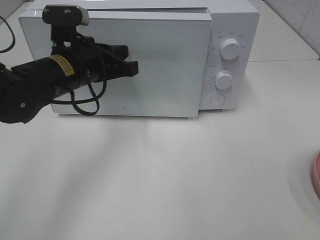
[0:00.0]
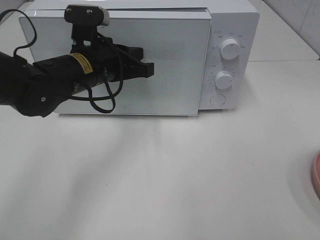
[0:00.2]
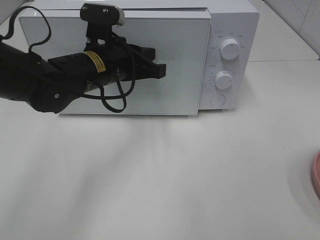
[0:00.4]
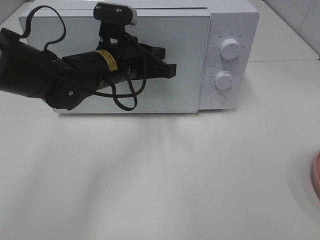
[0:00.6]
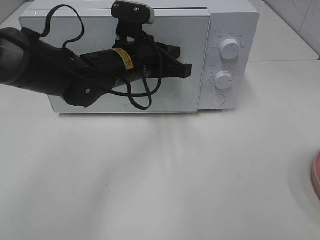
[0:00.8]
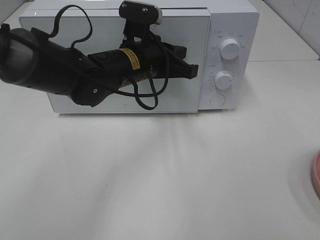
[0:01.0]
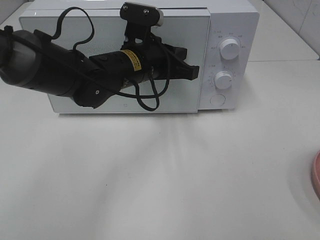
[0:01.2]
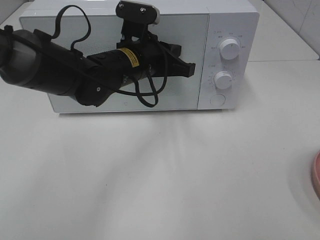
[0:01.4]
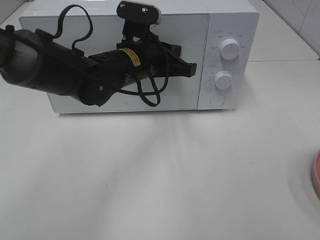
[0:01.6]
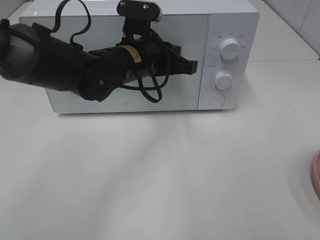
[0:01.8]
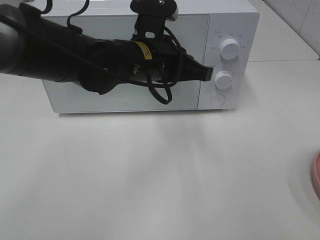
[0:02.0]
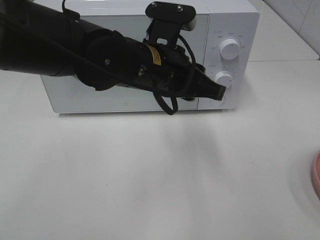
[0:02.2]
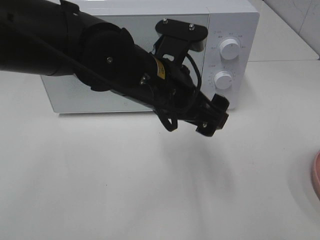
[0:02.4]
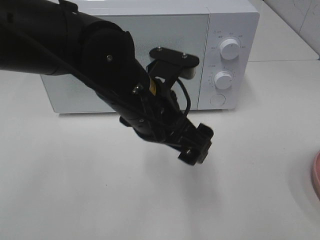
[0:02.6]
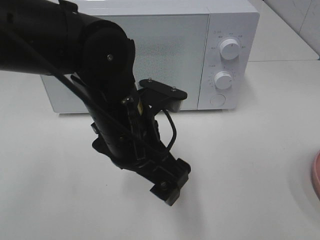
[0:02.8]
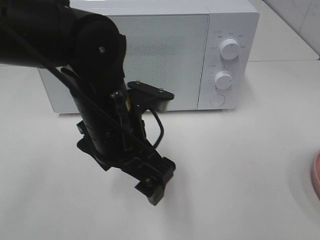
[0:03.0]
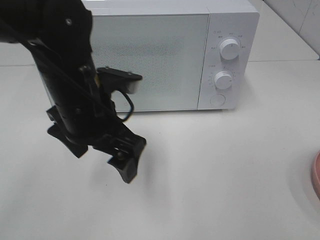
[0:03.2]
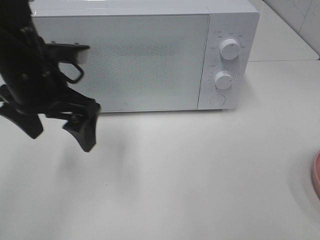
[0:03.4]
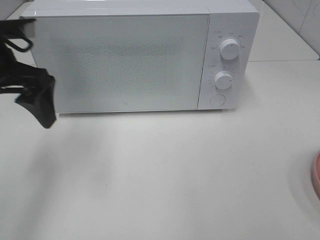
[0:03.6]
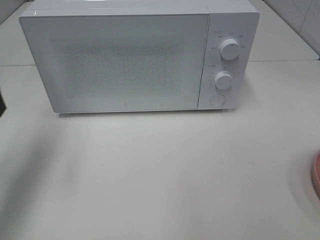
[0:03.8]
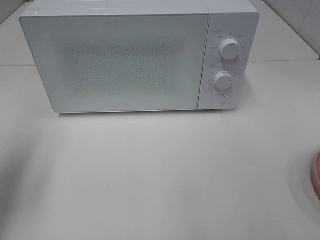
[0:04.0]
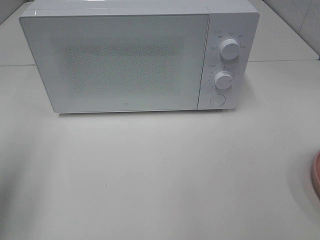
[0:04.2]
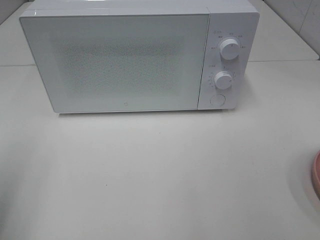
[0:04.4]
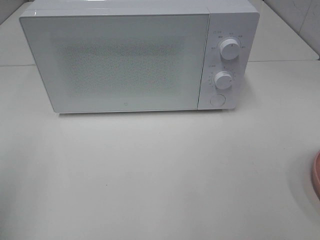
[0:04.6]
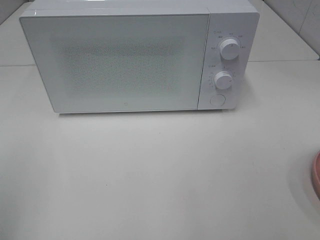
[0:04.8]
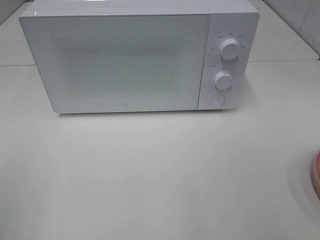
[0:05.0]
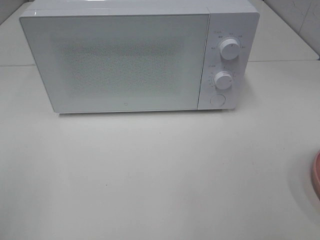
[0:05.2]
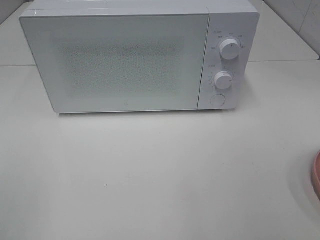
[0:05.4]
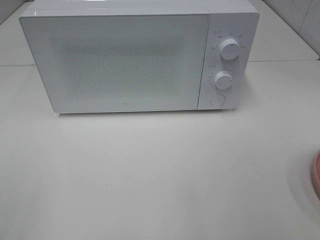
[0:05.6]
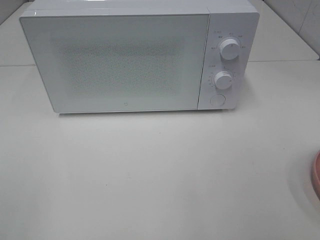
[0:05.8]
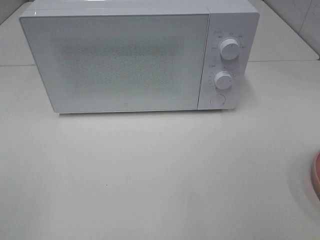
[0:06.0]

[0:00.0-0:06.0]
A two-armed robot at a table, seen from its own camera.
Task of the whole recording: Heat the burger.
0:00.0 to 0:01.6: The left gripper is displaced to the right by some 10 cm.
0:01.6 to 0:03.0: The left gripper travels backward by approximately 15 cm, and opens its fingers.
0:03.0 to 0:04.4: The left gripper is displaced to the left by approximately 30 cm.

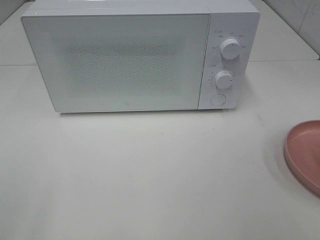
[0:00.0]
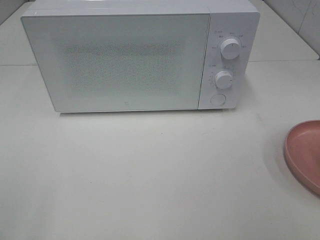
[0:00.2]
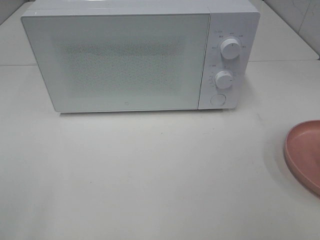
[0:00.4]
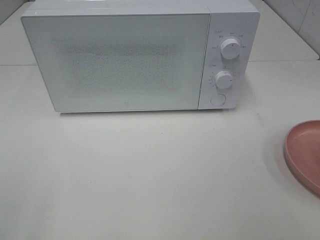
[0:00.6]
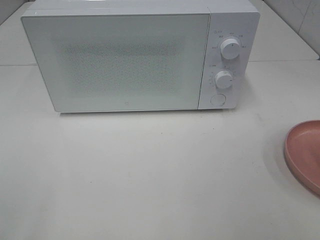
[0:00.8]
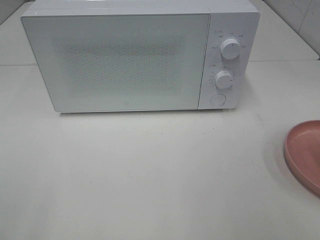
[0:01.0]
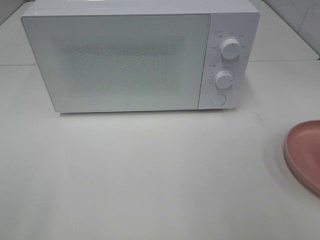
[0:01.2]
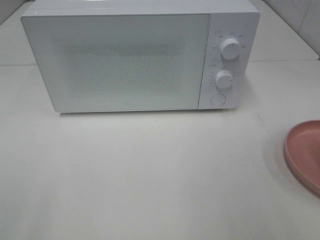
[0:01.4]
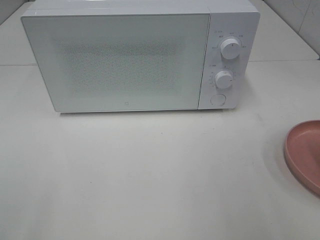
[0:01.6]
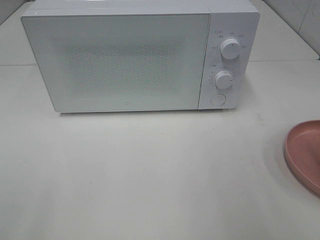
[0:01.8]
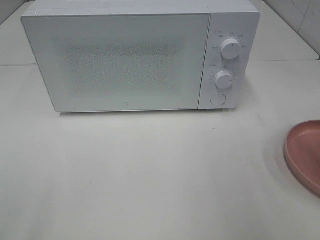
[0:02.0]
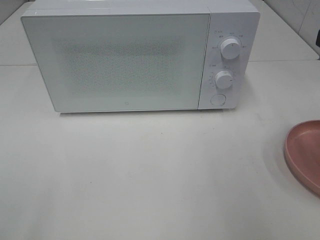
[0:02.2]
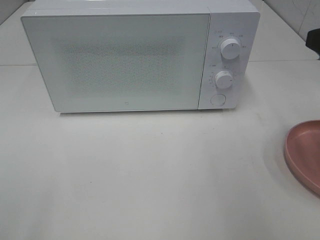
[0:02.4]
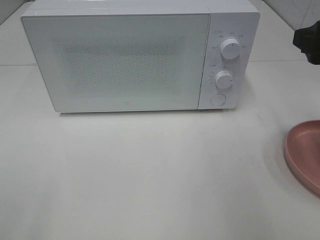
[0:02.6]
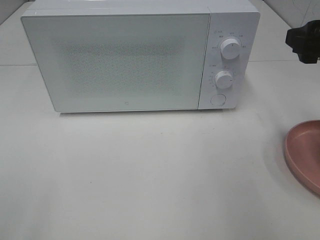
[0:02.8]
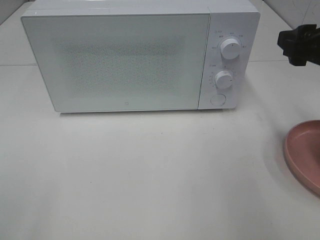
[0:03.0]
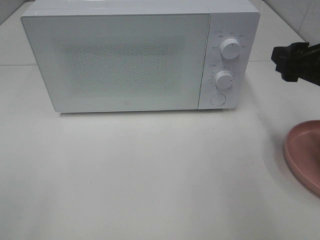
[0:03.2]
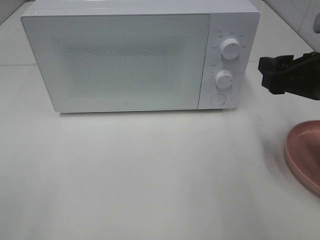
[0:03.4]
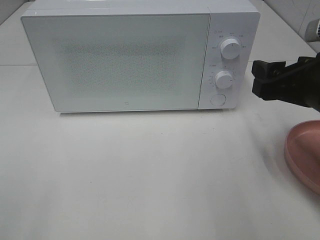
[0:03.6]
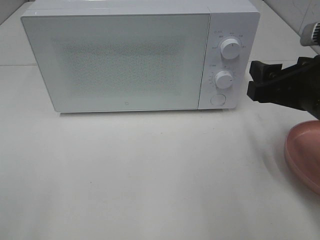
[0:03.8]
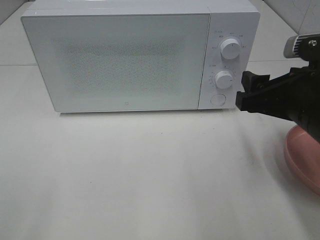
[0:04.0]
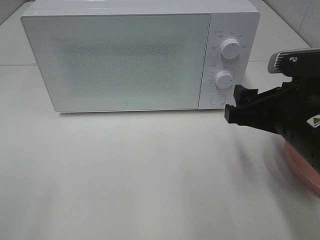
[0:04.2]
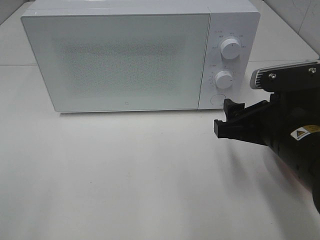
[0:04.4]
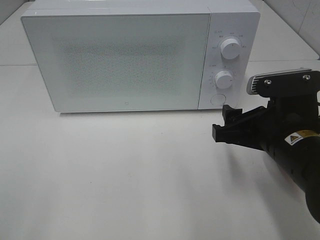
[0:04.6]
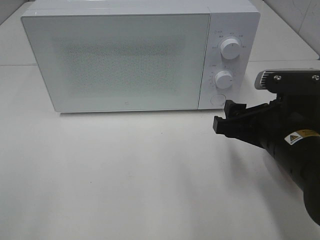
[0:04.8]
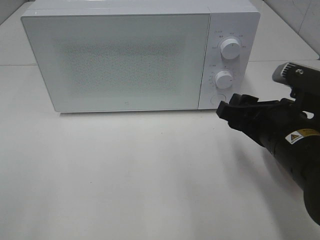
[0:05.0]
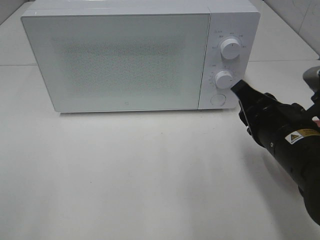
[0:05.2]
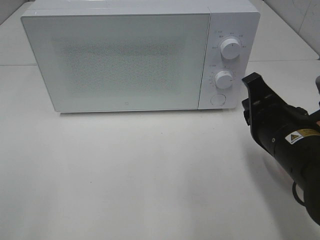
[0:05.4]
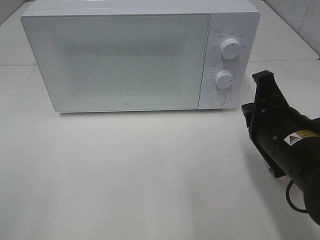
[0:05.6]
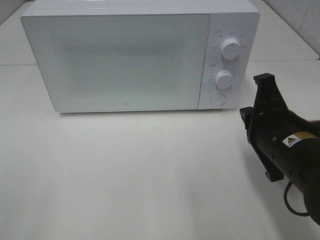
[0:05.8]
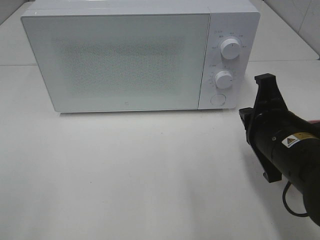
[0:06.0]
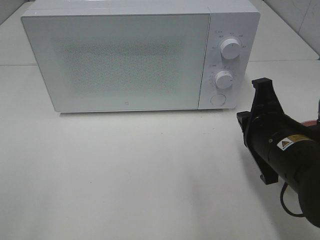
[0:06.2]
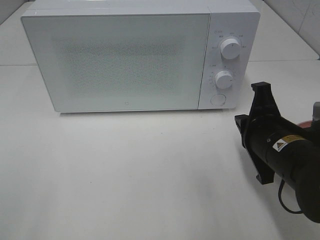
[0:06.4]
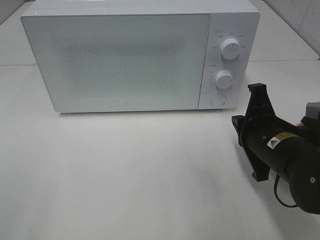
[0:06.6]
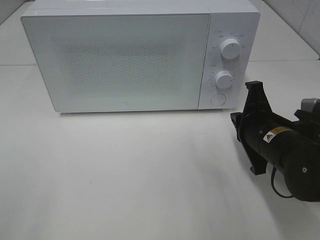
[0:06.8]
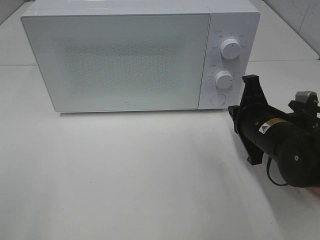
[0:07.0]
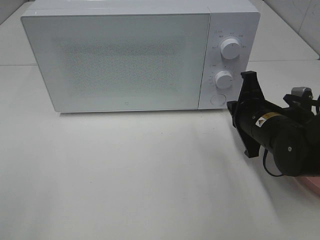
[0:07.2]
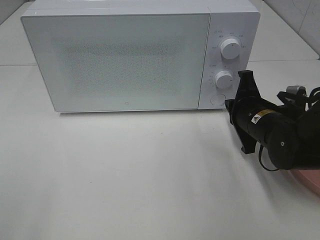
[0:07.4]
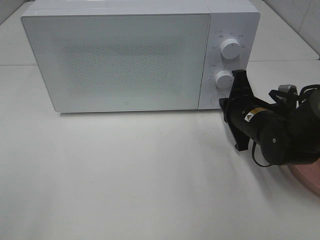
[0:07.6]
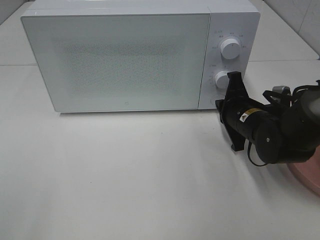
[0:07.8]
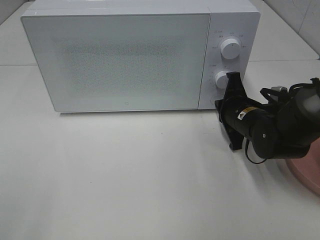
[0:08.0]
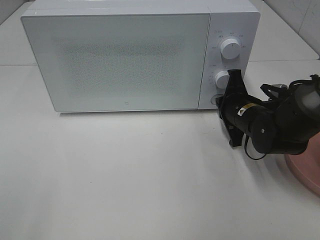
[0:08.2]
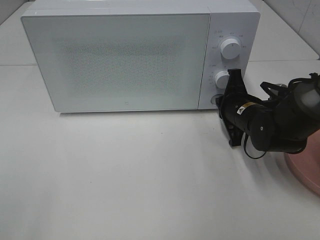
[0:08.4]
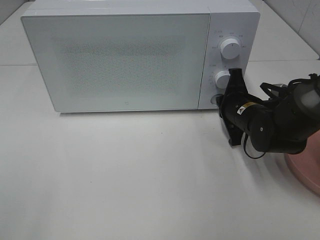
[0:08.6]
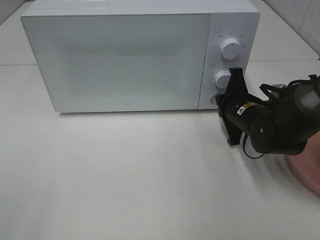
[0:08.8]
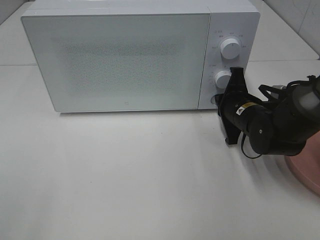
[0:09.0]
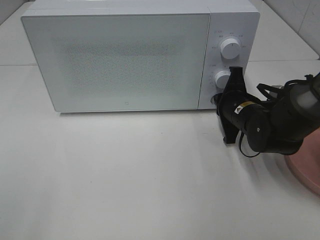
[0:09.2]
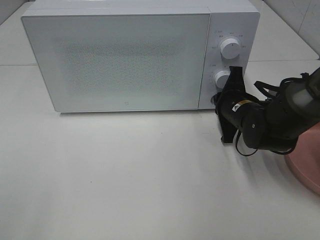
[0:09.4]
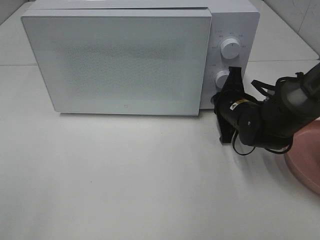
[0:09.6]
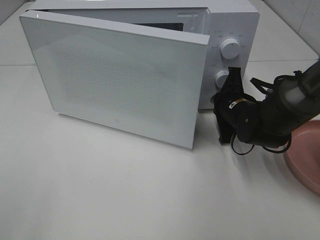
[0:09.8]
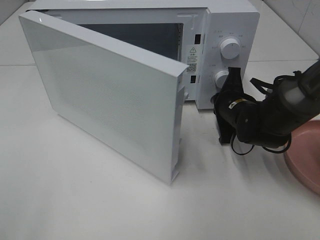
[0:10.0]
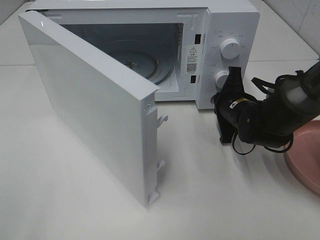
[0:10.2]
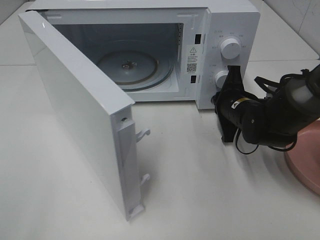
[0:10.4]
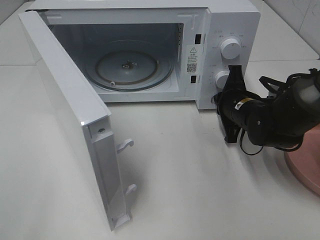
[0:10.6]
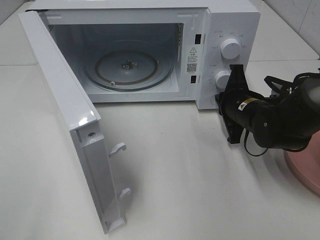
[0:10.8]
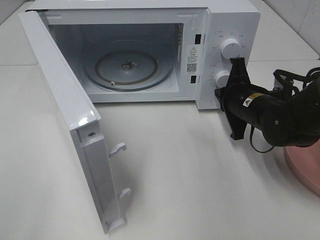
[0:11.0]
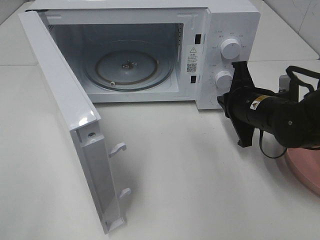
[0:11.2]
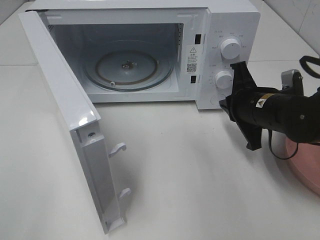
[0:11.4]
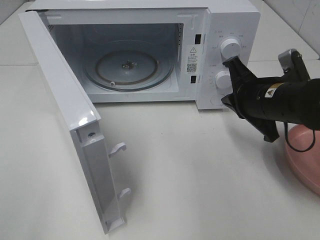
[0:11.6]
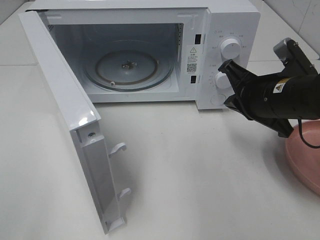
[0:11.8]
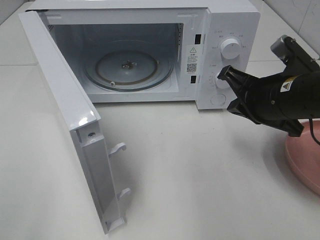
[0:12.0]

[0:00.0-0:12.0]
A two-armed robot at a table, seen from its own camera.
Task of the whole recording: Heat the burger.
Step, 0:00.0 to 0:10.8: Right hand: press the switch.
0:01.6 to 0:03.0: The right gripper moves forward and downward, roughly 15 cm.
0:03.0 to 0:04.4: The right gripper moves to the left, downward and backward, about 15 cm.
0:04.4 to 0:06.0: The right gripper closes its fingers.
0:06.0 to 0:07.6: The right gripper moves forward and downward, about 15 cm.
0:07.6 to 0:09.0: The grippers stay close to where they were, moving slightly.
0:10.4 to 0:12.0: The right gripper heads upward and backward, covering roughly 15 cm.

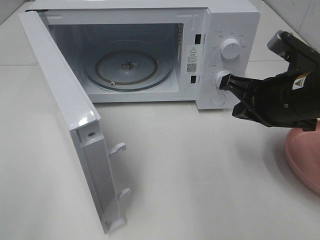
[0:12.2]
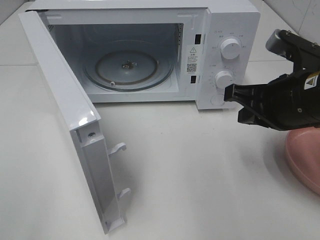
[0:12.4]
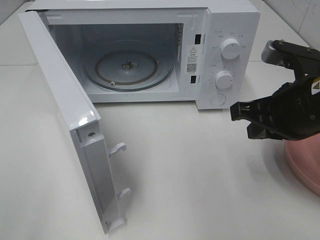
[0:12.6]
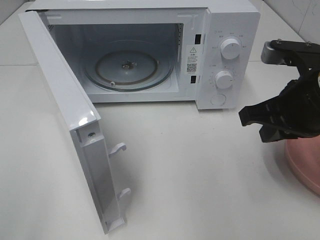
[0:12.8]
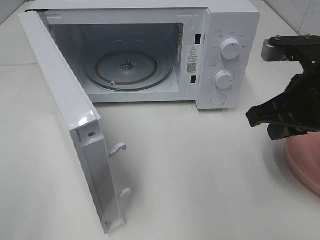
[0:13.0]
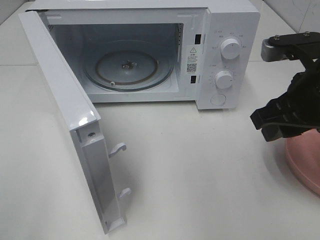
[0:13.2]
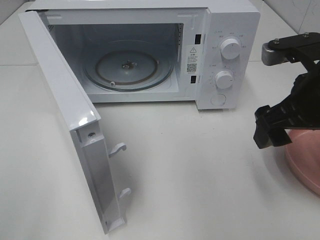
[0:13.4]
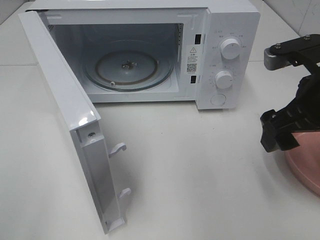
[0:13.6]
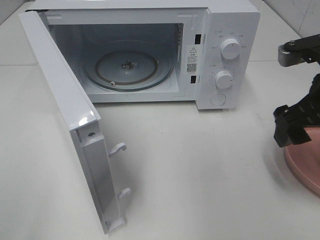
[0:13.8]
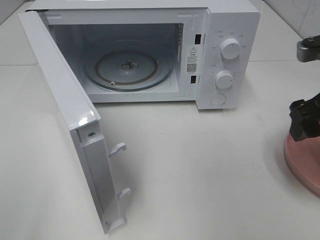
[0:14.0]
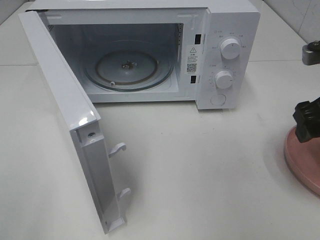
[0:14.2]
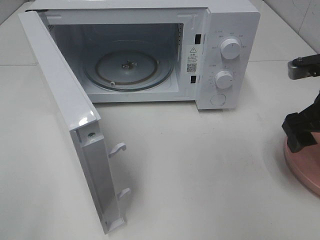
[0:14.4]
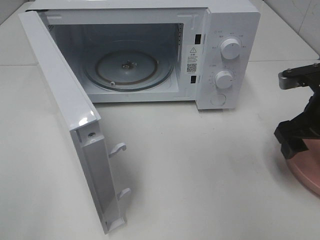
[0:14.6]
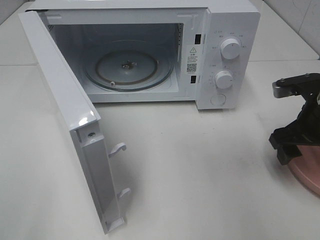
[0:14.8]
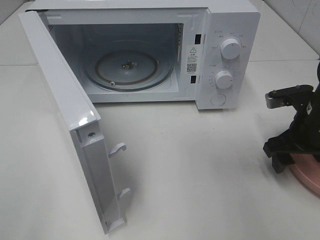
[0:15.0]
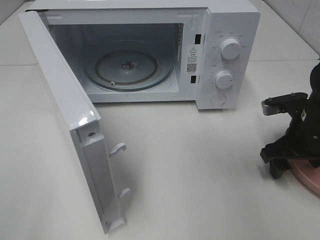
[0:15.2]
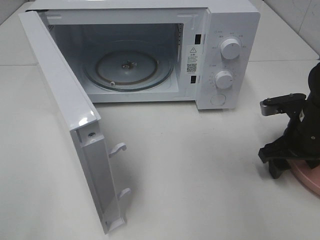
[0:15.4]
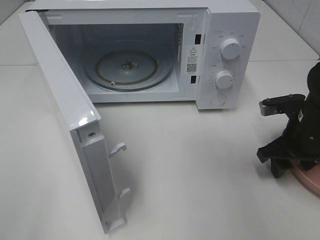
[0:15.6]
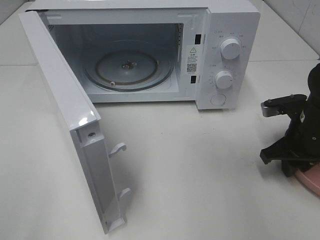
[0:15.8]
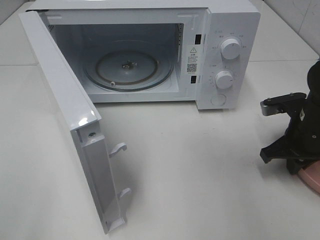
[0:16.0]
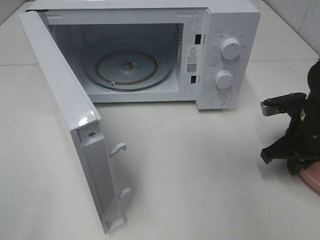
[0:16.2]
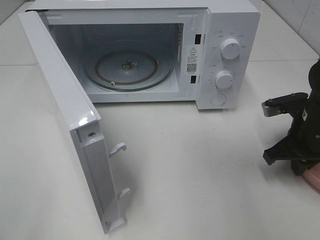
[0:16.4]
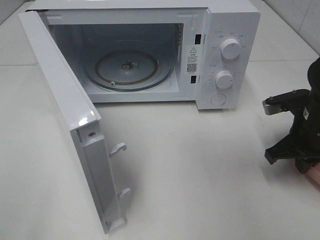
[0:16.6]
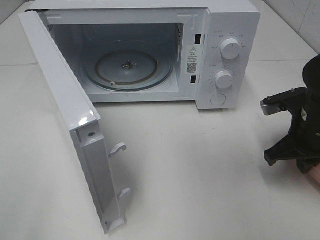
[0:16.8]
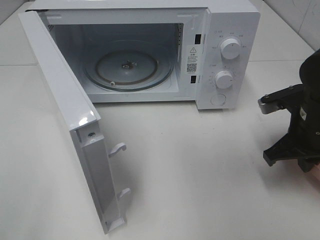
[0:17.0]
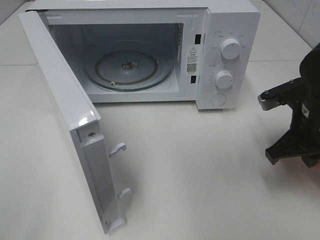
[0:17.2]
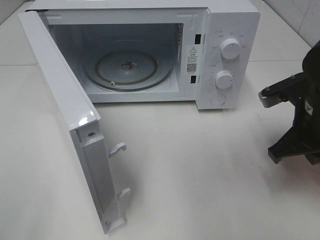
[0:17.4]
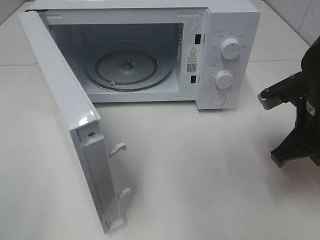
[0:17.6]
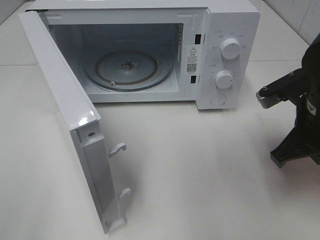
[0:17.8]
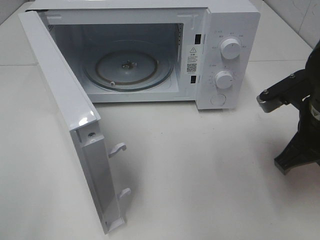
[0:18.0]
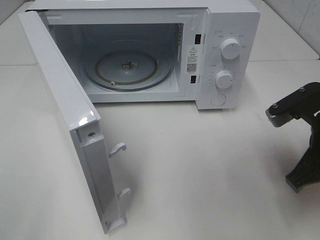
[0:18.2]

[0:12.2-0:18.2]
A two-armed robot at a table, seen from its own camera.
Task of the whole recording: Heat the burger.
Step, 0:12.2 to 0:15.8: Right hand: grab the plate with the hamburger.
0:12.2 to 0:13.8: The right gripper changes place by some 5 cm, and opens.
0:13.8 to 0:15.2: The right gripper travels downward and forward by about 15 cm.
0:15.2 to 0:16.6: The right gripper closes up.
0:16.6 to 0:18.2: The right gripper heads backward and upward, covering approximately 10 cm.
